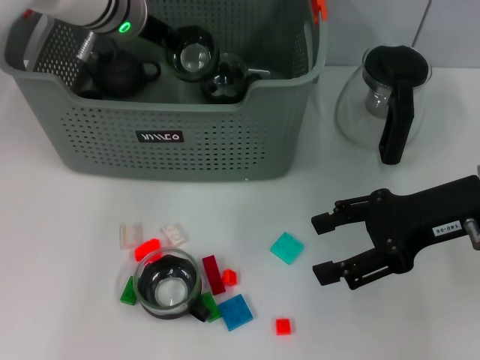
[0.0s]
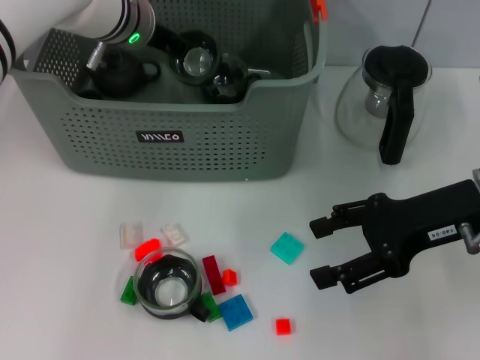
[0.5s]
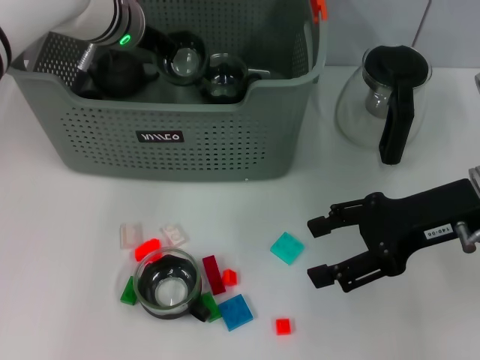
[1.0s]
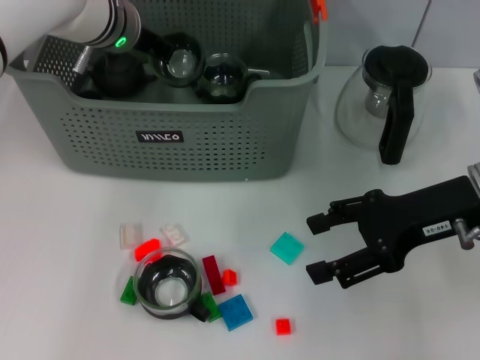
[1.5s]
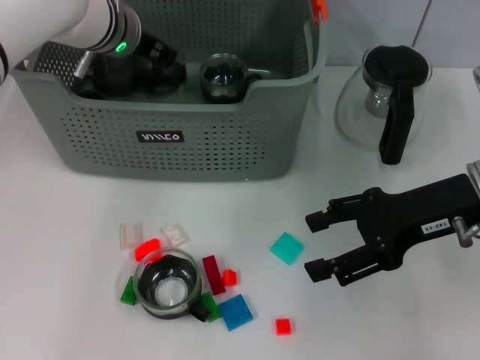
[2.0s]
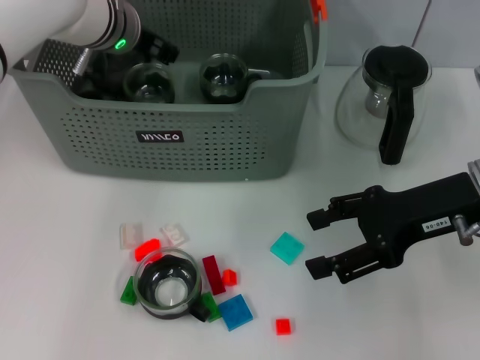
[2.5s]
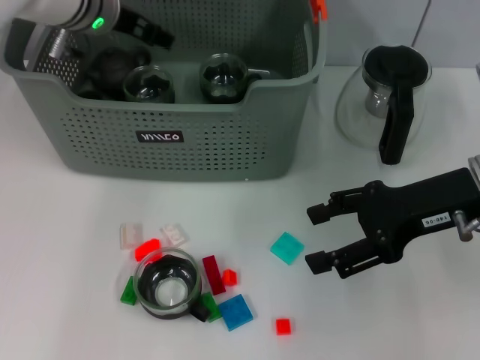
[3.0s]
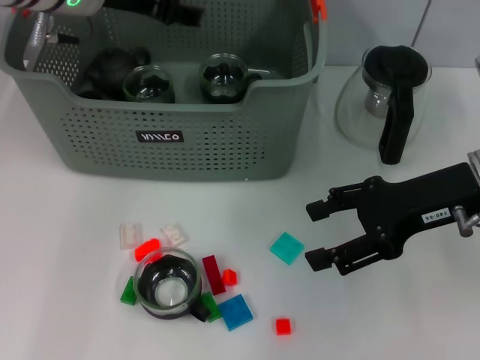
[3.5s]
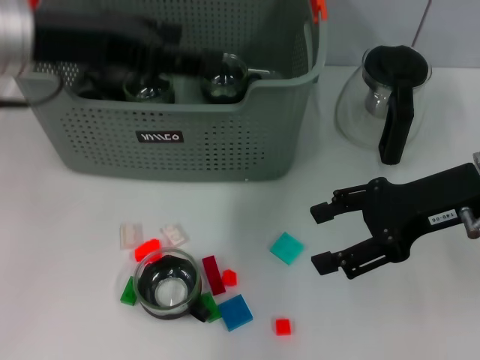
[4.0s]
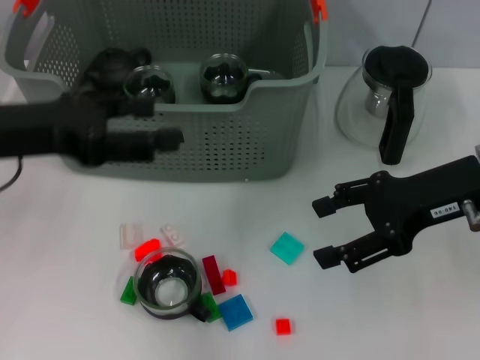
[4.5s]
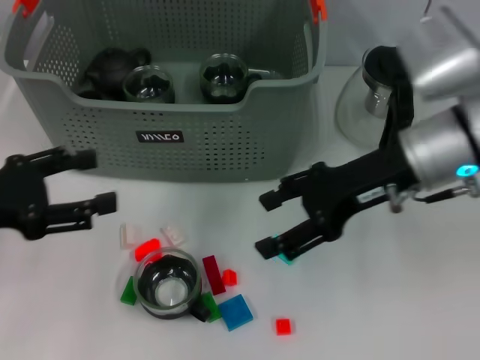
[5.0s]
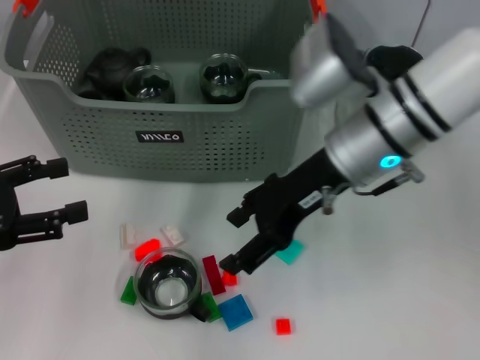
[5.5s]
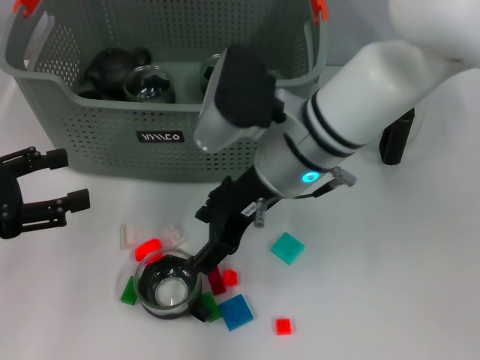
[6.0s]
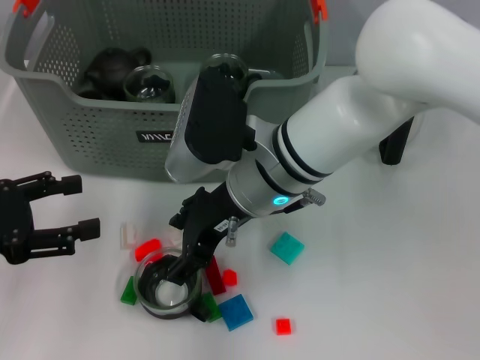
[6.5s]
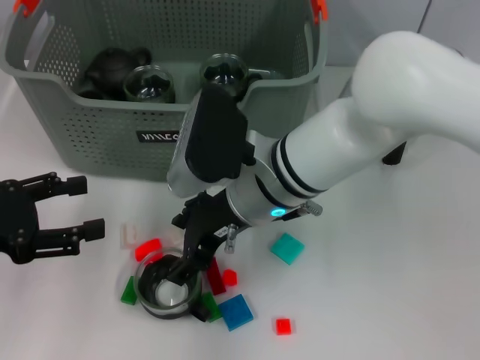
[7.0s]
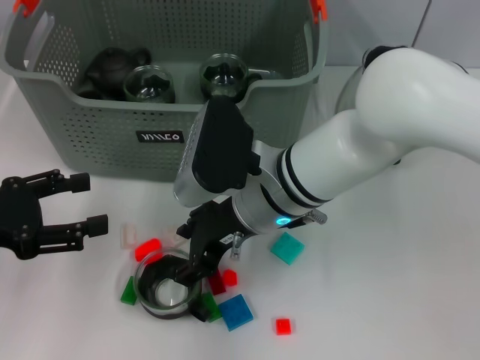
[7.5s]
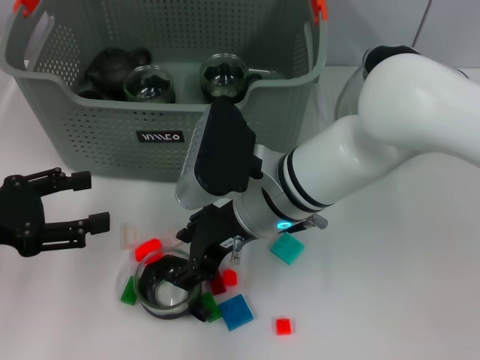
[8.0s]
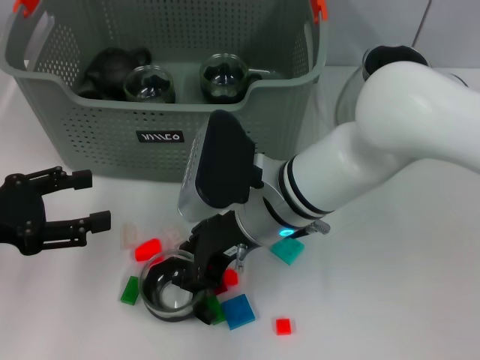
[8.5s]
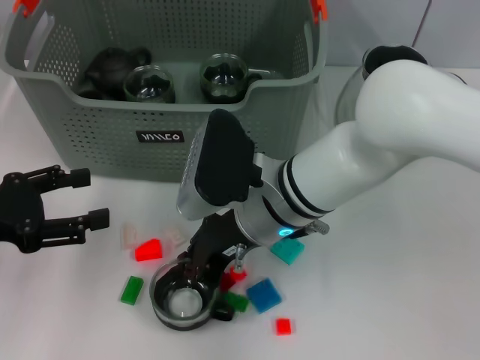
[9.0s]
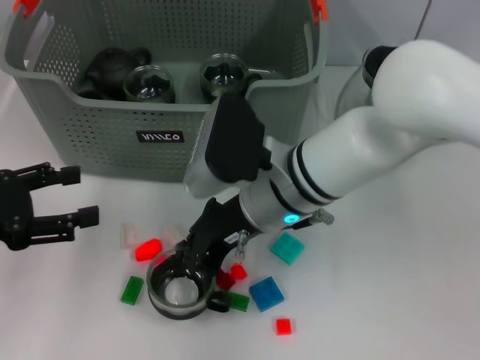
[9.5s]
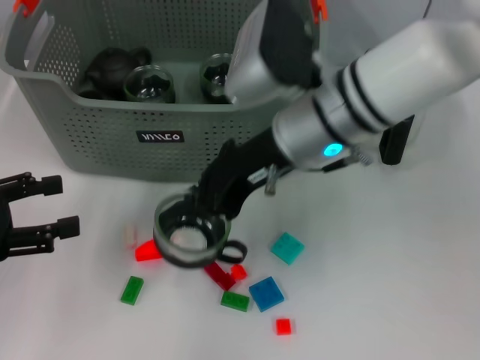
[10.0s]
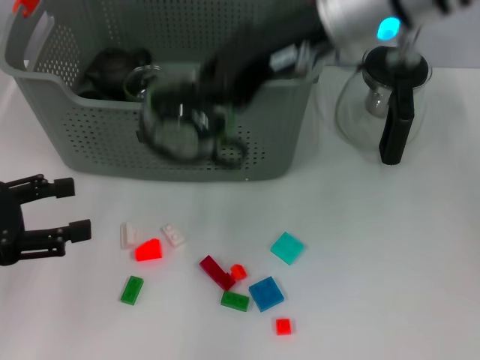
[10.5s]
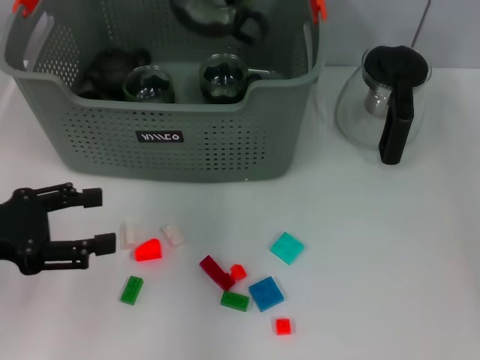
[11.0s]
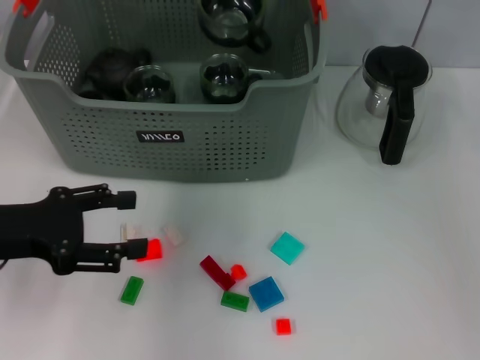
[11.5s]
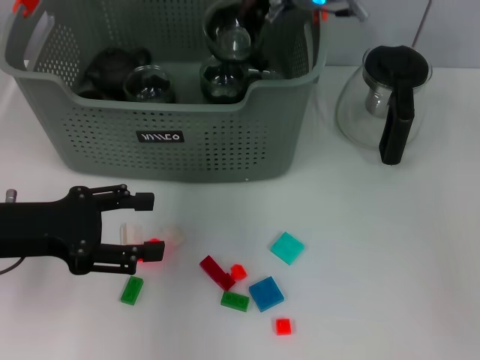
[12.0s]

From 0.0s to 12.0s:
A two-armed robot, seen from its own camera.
Task of the whole recording: pick up the teacup on the table and place it into the storage bin, pick up the block on the table and place it into the storage bin.
Step, from 0.0s to 2.5s: Place the cup in the storage box with left gripper.
Step, from 3.0s to 8.5s: Grasp the cup with right gripper.
From 0.0s to 2.0s: The grippers make only small movements.
From 2.0s to 4.0s: The left gripper travels backward, upward and to the left by some 20 cm, and opens.
From 4.0s to 6.0s: The right gripper is displaced to the left by approximately 20 cm. Meanwhile the left gripper heads downward, to the left and backward, covering roughly 20 cm.
From 6.0s to 8.0s: The right gripper shifts by about 5 cm.
From 8.0s to 10.0s: The right gripper shifts some 5 cm upward, and closes.
From 10.0s to 12.0s: The right gripper is displaced forward by about 10 cm, and goes upward and returns, roughly 15 cm each way. Meanwhile the left gripper shifts some 5 cm to the right.

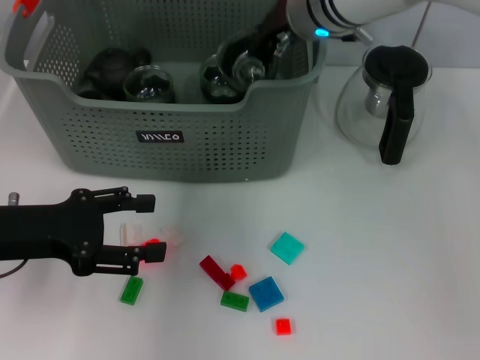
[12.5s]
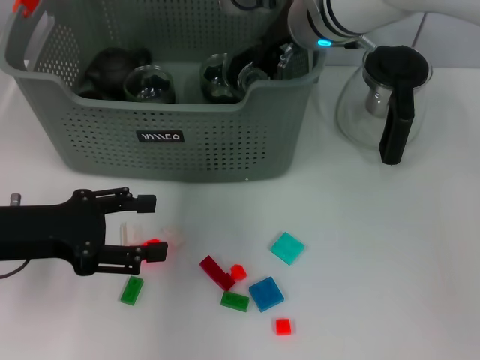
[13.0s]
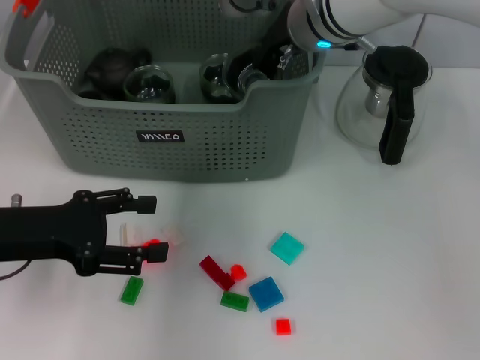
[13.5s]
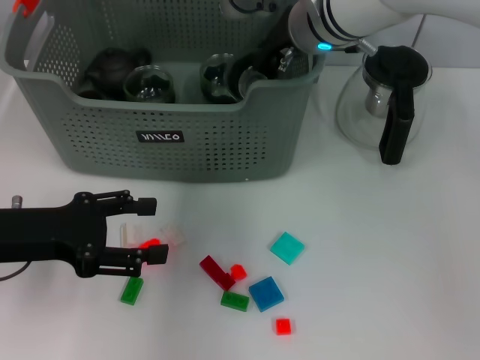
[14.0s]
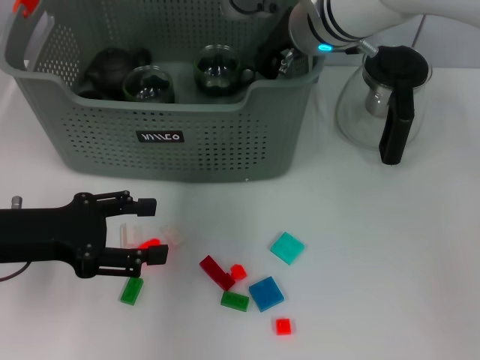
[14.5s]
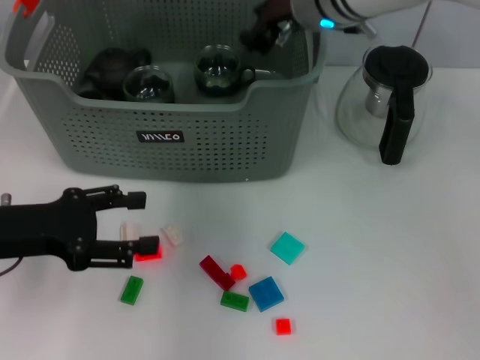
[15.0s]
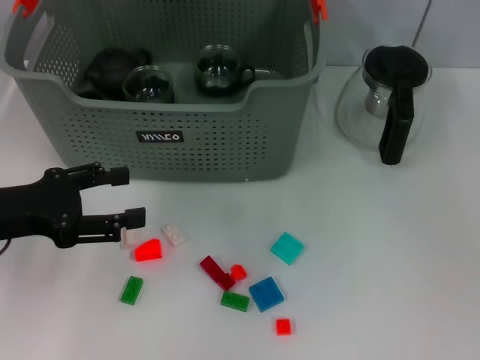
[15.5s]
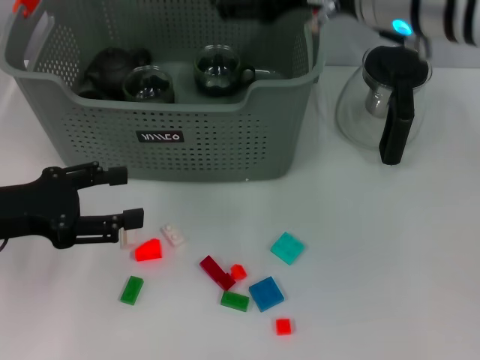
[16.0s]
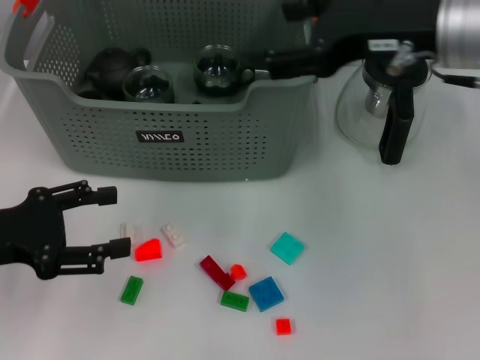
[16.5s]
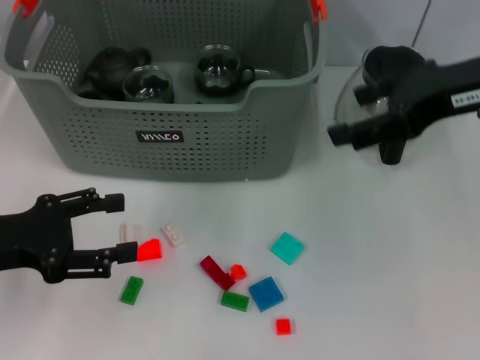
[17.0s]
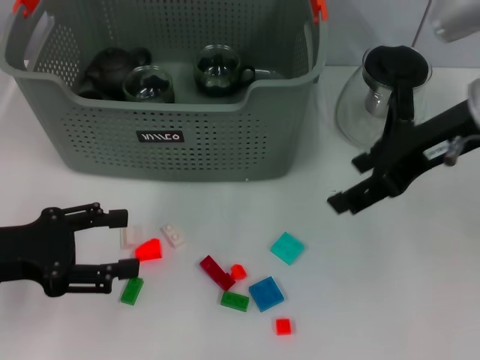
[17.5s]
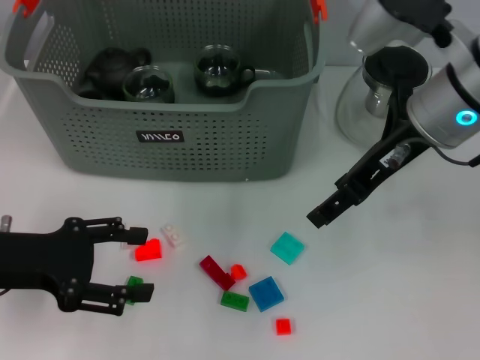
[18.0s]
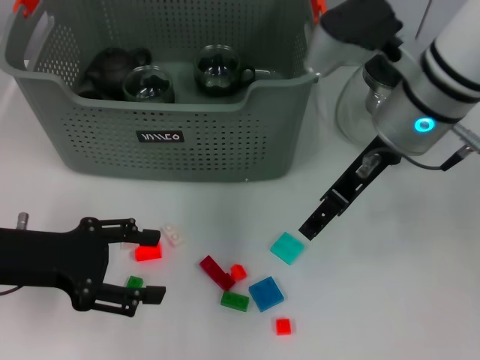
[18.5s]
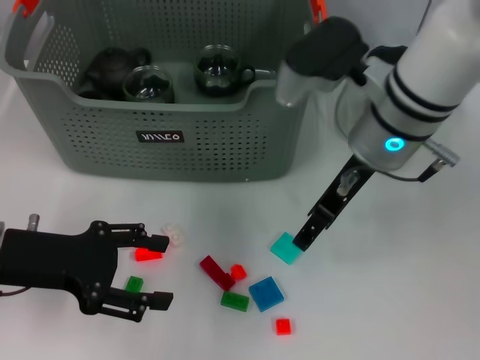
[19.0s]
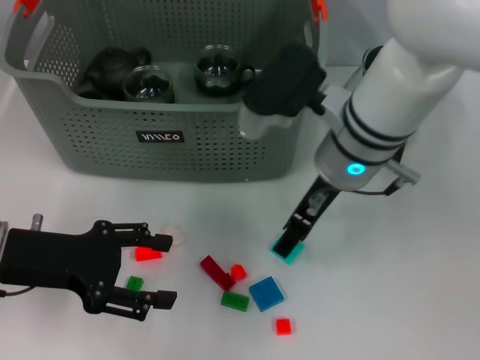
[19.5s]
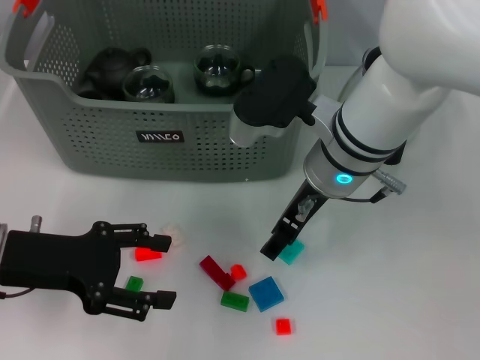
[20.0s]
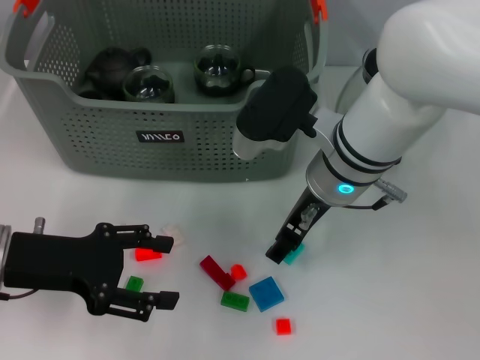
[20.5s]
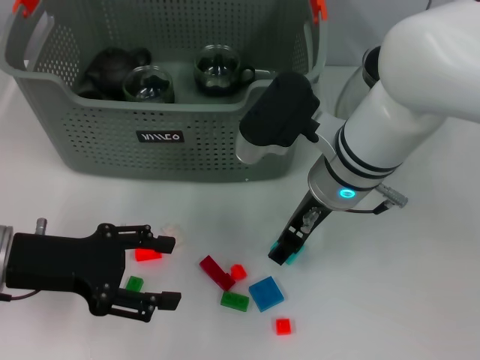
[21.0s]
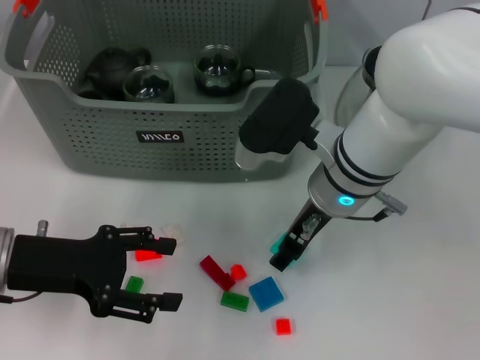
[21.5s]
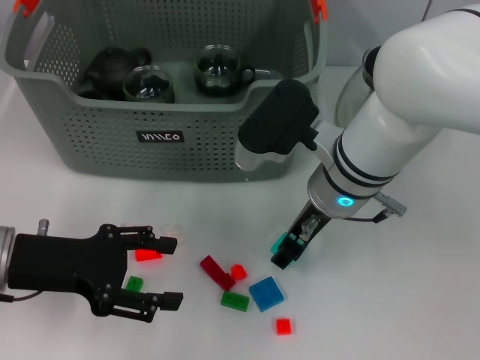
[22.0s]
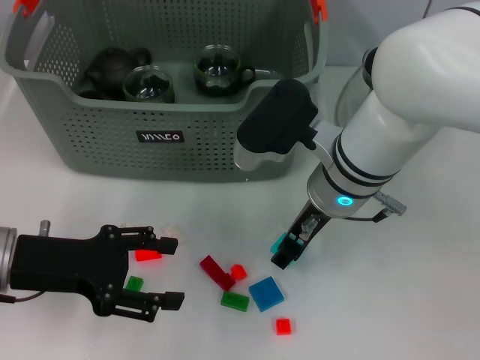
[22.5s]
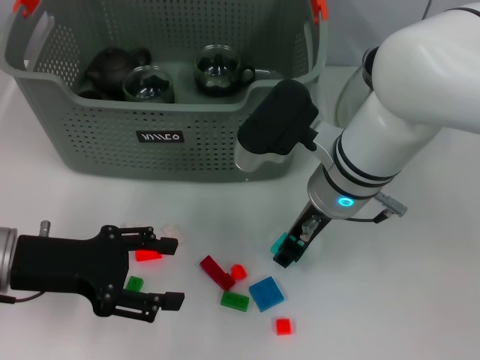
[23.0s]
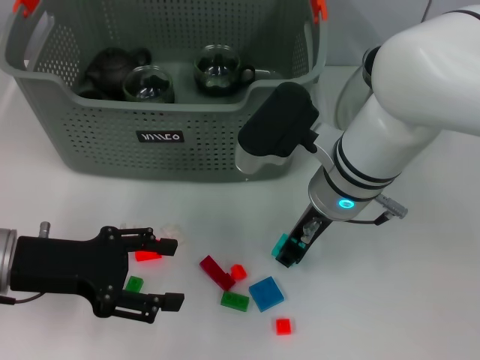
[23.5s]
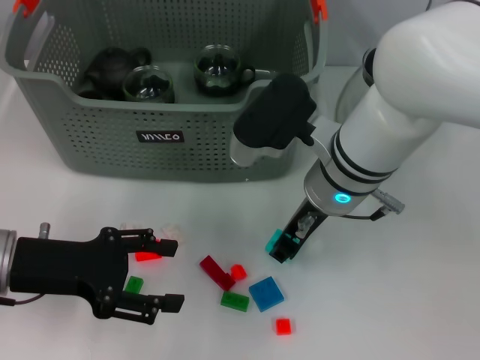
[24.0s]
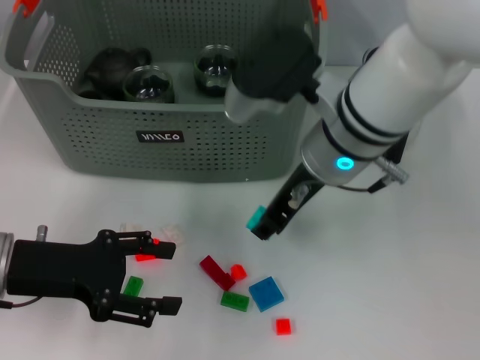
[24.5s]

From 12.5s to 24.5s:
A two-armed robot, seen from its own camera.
Task of the whole recording: pick up the teacup on the table and place it into the storage bin, pick up the block on the table and place it into the storage bin.
Step, from 12.5s to 14.5s: Place the cup in the storage box with right gripper.
Step, from 15.0s to 23.5s: Grasp the light blue block with right gripper.
From 12.5s to 14.5s: Neither gripper changes place.
From 14.5s to 16.5s: The right gripper moves backward, to the right and upward, approximately 15 cm, and opens its fingers.
From 16.5s to 18.5s: The right gripper is displaced downward by approximately 5 cm.
From 18.5s to 20.5s: The right gripper goes roughly 10 cm downward and to the left.
From 20.5s to 22.5s: Both grippers stay put.
From 22.5s to 24.5s: The right gripper shifts some 5 cm upward.

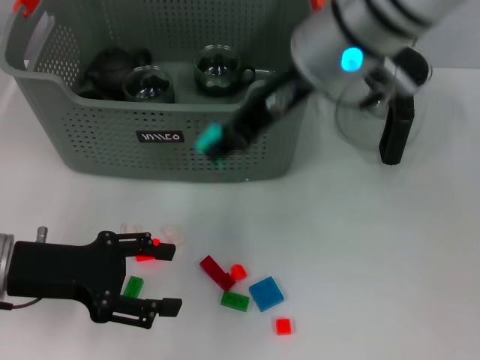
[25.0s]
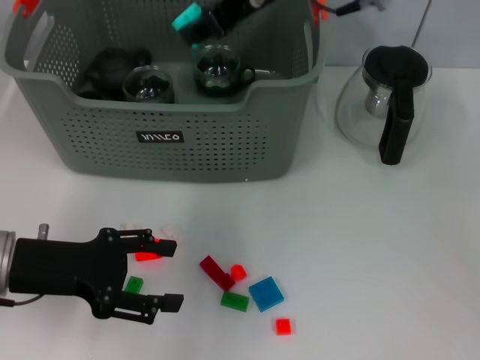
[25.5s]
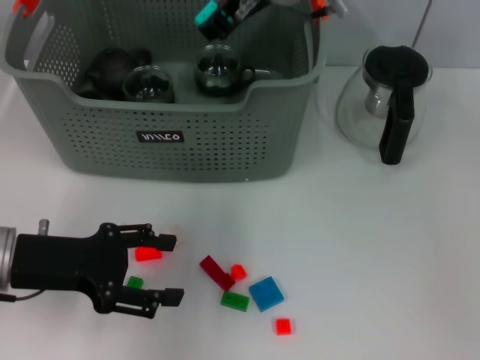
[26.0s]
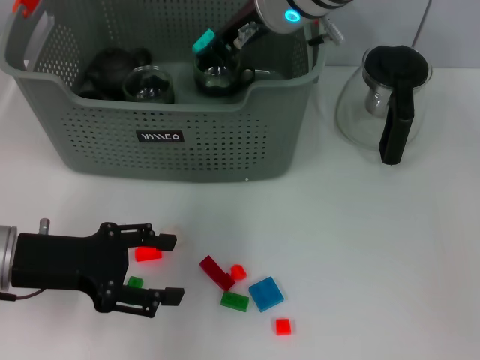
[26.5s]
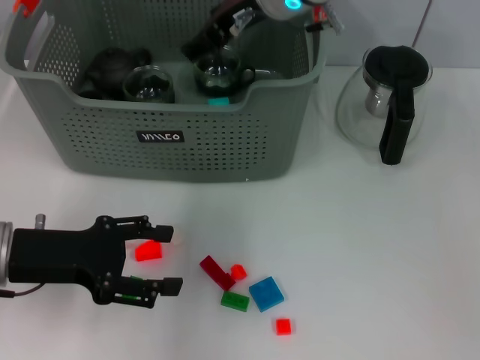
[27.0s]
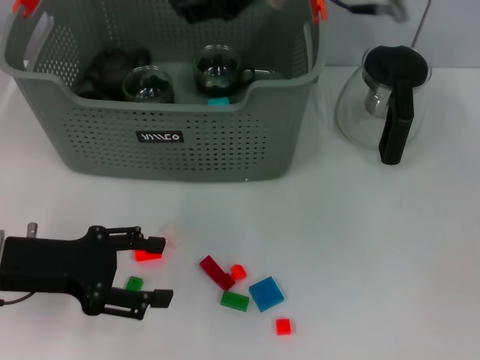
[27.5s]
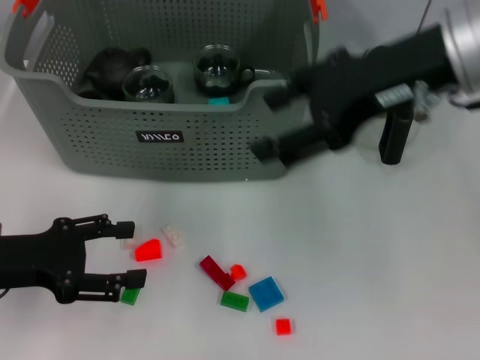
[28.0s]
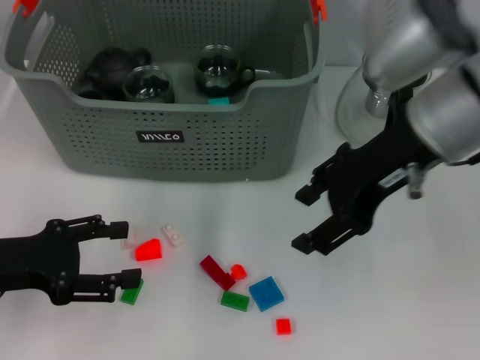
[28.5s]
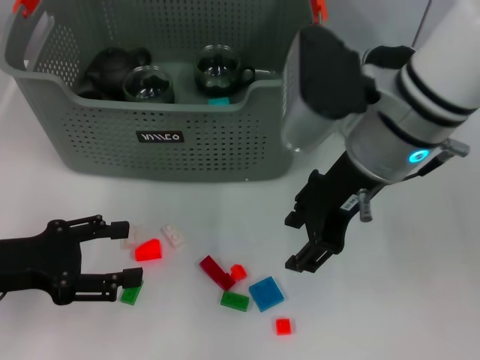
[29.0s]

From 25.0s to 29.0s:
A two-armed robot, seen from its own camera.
Task of the whole recording: pick up the teacup on the table and place it into the storage bin, pick up the block on the table and place it into the storage bin.
From 25.0s to 27.0s: The right gripper goes some 10 cm forward.
From 27.0s to 29.0s: The right gripper heads backward and to the right, covering approximately 10 cm.
